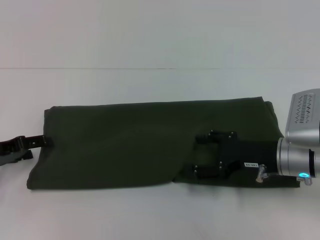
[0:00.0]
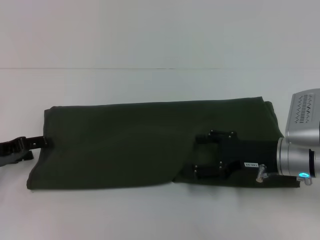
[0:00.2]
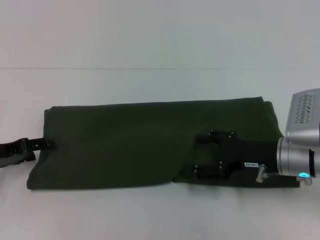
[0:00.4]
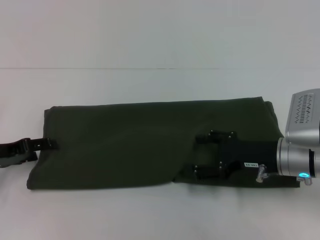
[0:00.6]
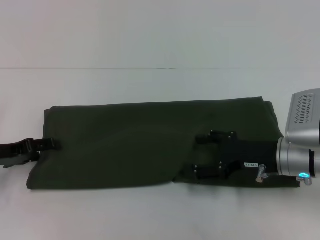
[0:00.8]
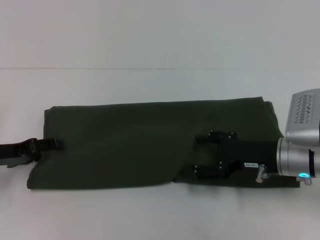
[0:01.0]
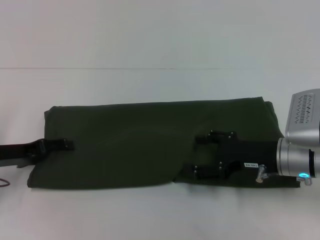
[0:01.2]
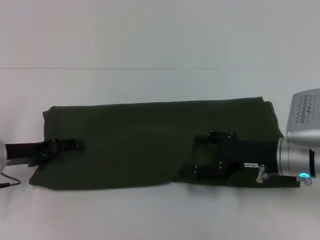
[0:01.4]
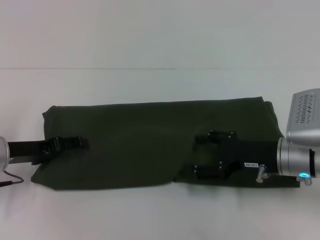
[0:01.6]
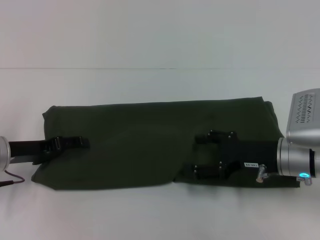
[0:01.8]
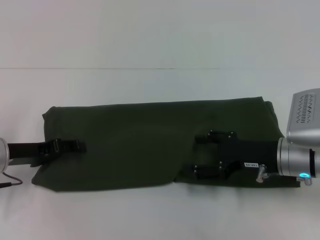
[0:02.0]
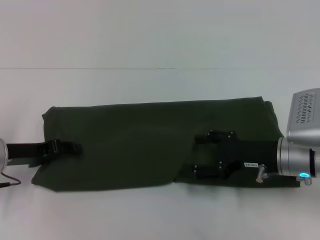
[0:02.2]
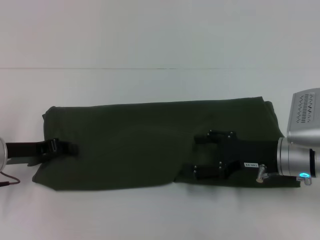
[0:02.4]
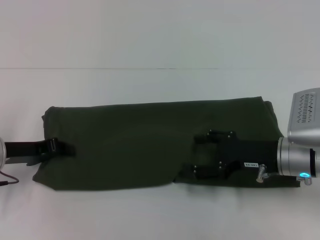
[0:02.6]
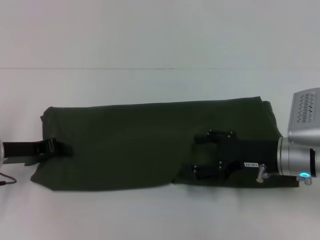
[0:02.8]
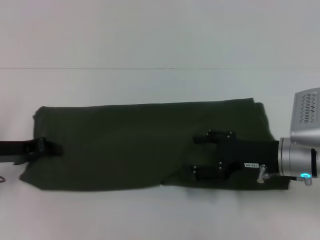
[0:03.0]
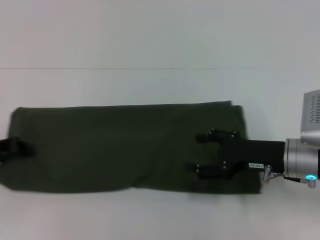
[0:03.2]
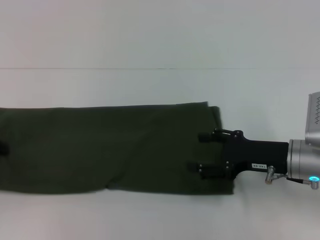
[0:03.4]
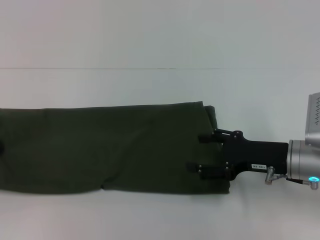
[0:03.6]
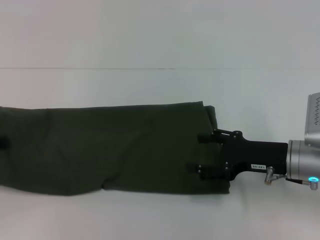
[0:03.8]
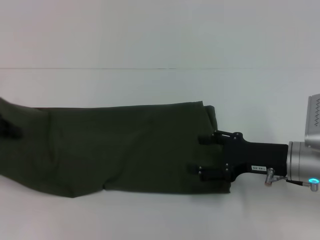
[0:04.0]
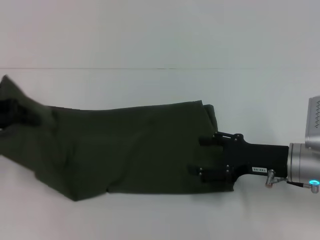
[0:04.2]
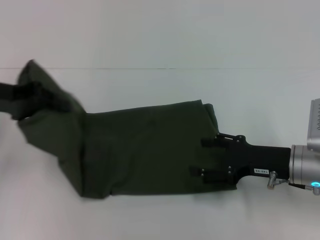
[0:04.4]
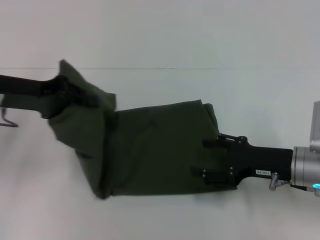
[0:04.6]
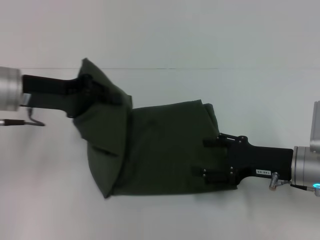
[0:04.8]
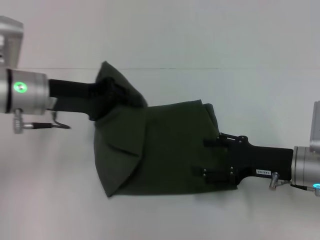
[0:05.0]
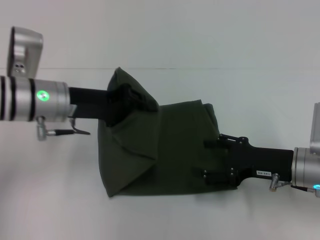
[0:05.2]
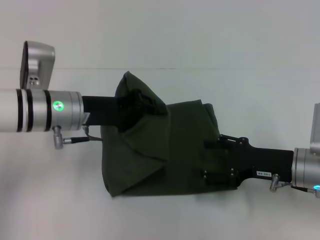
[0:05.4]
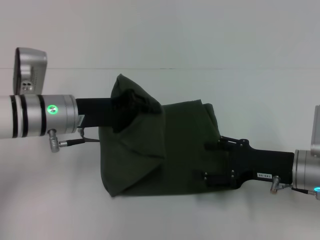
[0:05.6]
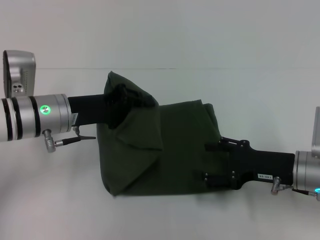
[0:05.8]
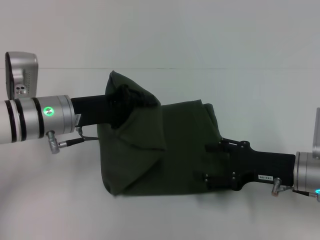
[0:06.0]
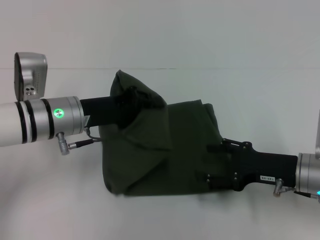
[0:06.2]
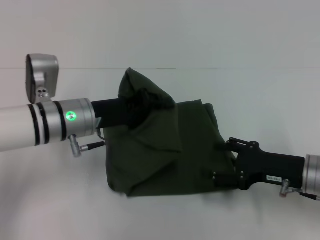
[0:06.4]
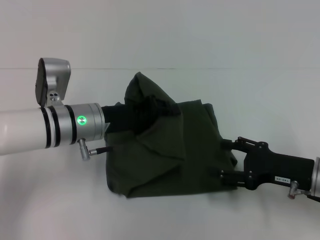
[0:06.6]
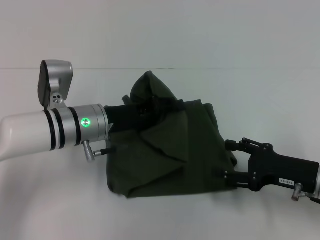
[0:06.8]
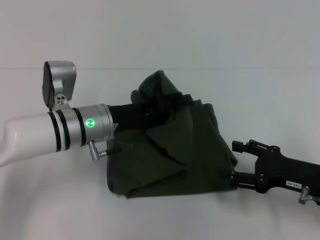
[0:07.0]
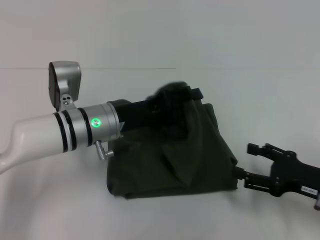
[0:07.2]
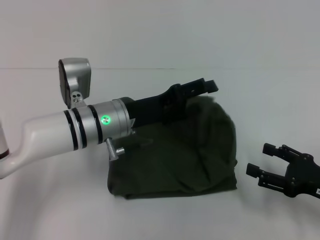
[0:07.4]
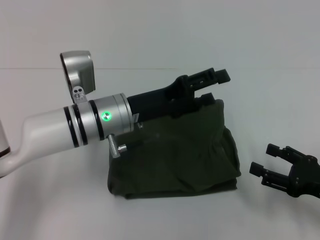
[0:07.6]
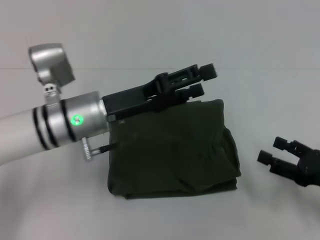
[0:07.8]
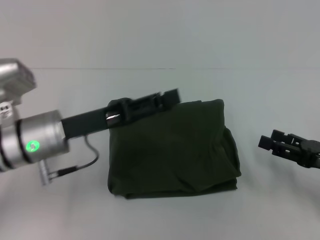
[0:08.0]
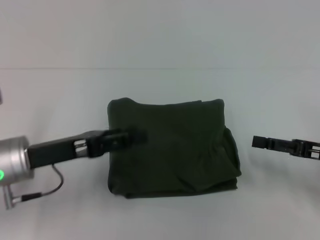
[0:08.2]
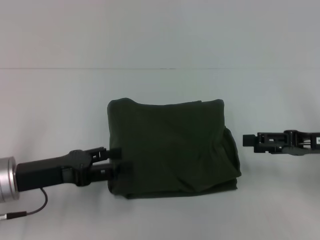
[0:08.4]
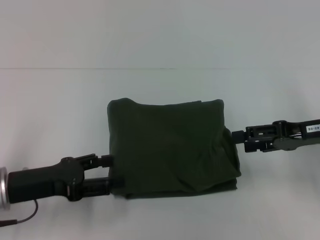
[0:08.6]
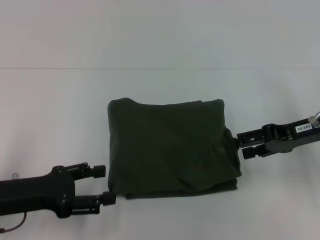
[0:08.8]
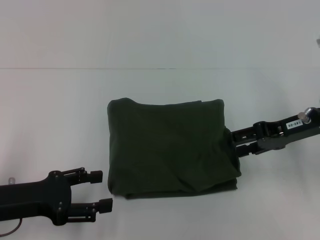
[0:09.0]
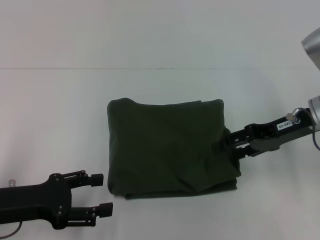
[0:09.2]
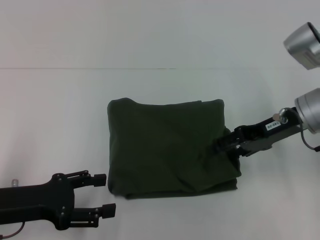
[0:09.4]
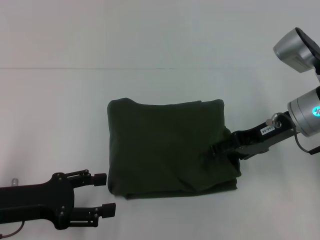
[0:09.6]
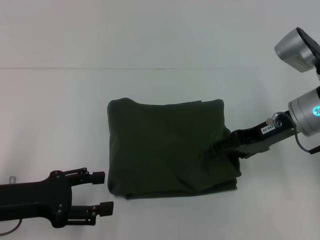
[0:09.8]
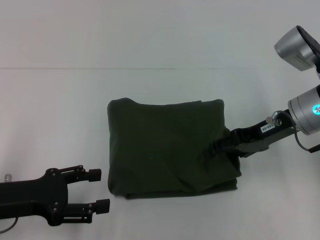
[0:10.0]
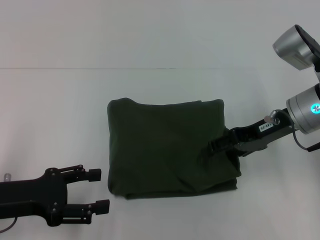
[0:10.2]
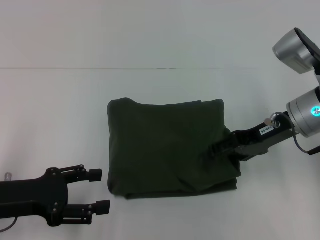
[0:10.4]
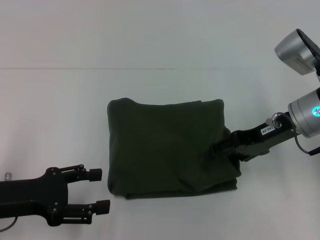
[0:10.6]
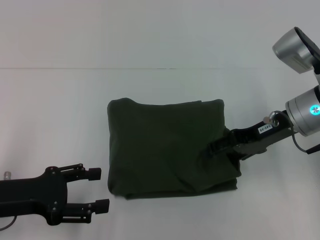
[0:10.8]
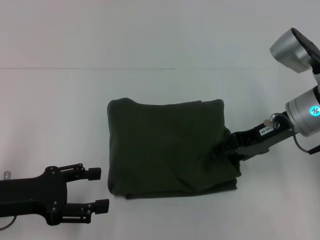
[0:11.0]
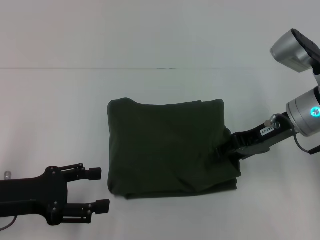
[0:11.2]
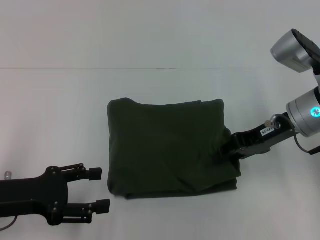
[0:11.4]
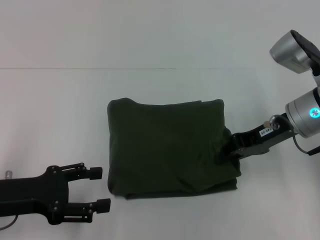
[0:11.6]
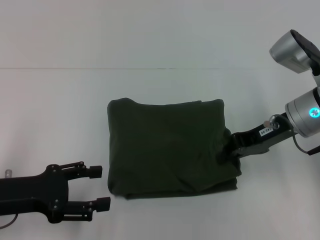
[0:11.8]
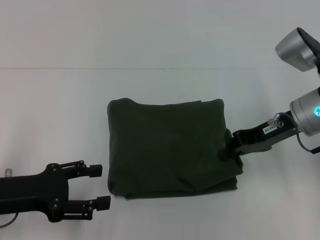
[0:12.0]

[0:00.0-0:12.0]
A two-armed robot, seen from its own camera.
Step, 0:00.0 to 0:07.4: Fold the clothes with your left hand.
0:00.0 to 0:01.6: The left gripper is displaced to the right by about 5 cm.
0:01.6 to 0:03.0: The left gripper closes up.
0:03.0 to 0:04.4: The left gripper heads upward, covering roughly 10 cm.
0:04.4 to 0:06.0: The left gripper moves to the right and downward, some 15 cm.
0:06.0 to 0:07.6: The right gripper heads to the right and backward, covering about 10 cm. The left gripper moves to the right, about 10 cm, and opens.
0:07.6 to 0:09.0: The right gripper heads forward and upward, covering about 15 cm. Meanwhile the left gripper heads to the left and backward, covering approximately 20 cm.
0:09.0 to 0:10.4: The grippers move only a little.
0:10.4 to 0:12.0: The right gripper closes its fingers.

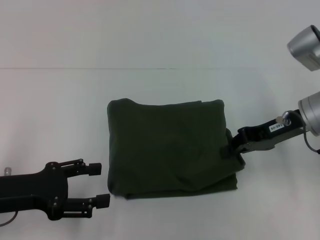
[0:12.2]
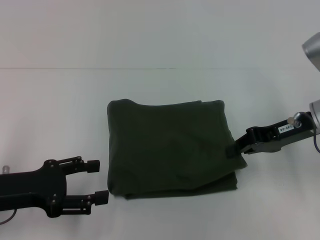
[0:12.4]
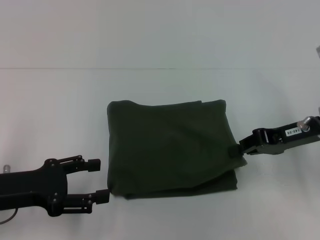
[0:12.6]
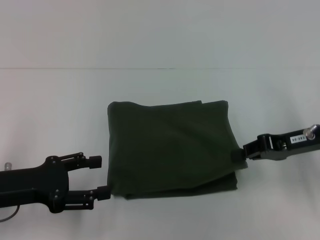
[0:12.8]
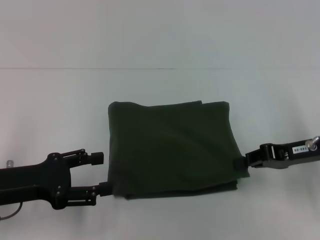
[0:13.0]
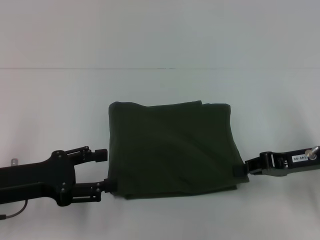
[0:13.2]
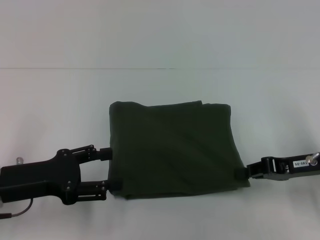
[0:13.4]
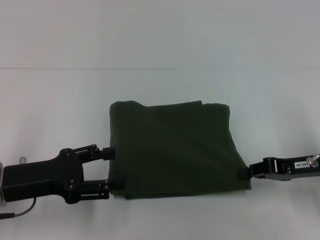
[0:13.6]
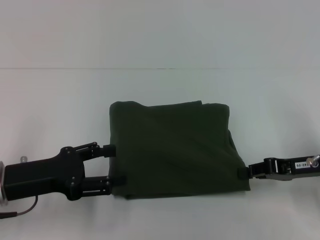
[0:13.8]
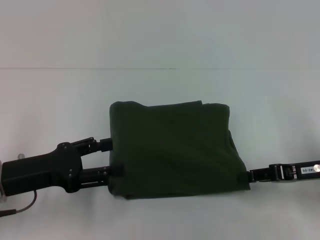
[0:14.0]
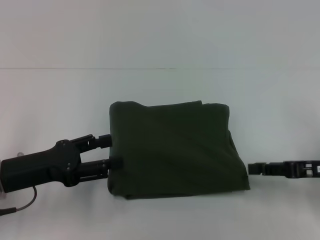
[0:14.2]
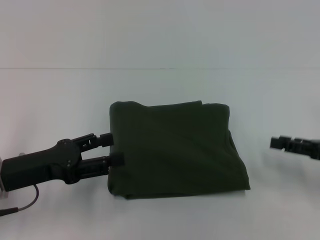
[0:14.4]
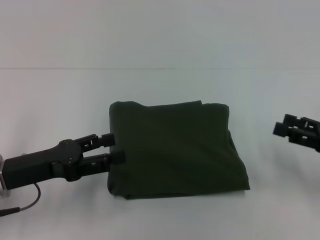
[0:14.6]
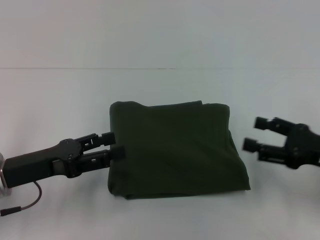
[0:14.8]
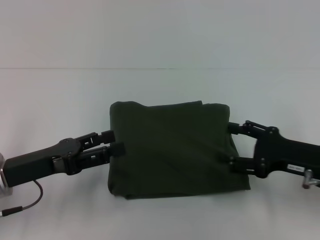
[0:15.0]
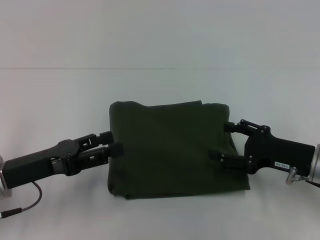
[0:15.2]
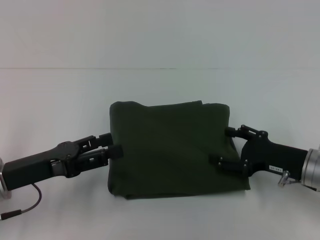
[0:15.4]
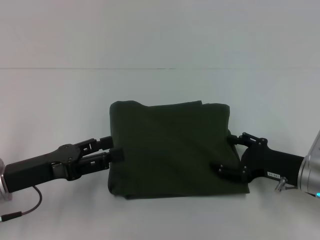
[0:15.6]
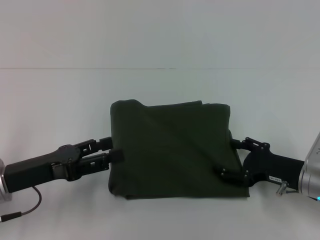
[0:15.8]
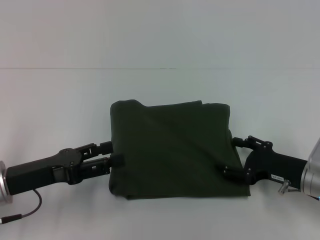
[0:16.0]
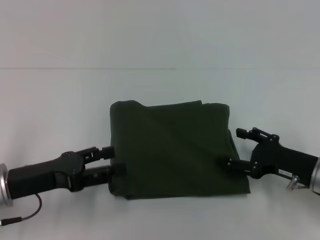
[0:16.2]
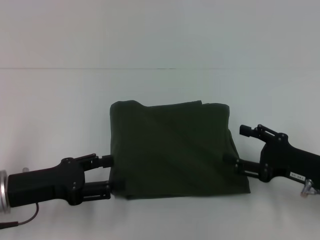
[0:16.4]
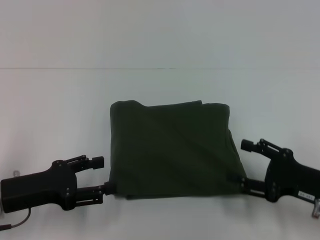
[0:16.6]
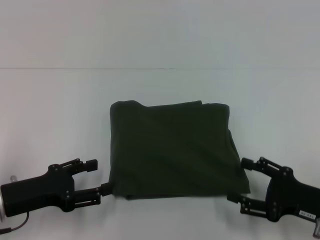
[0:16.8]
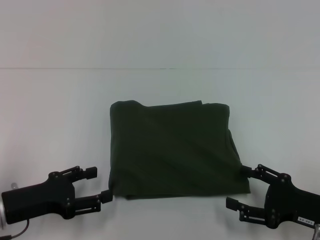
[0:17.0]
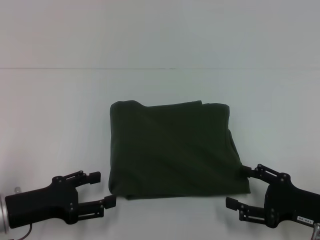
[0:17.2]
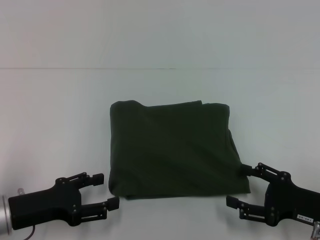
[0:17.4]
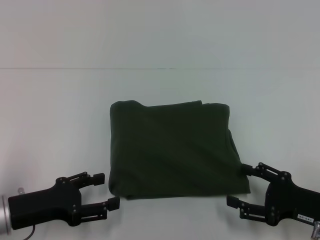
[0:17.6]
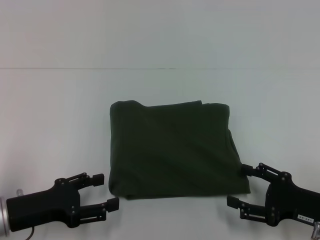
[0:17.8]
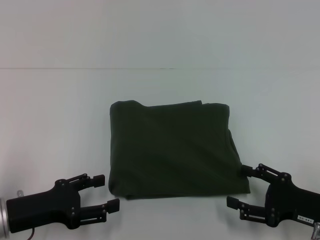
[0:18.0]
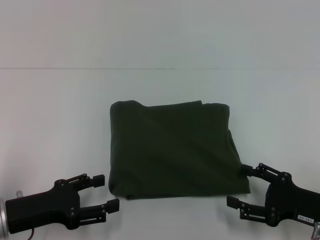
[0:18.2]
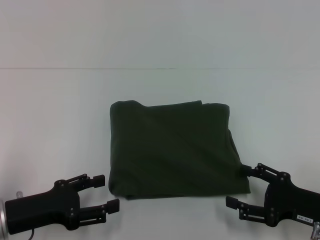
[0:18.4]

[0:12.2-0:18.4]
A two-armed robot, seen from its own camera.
0:12.2 to 0:13.8: The right gripper travels downward, backward and to the right by some 10 cm.
0:13.8 to 0:15.4: The right gripper opens up.
0:15.4 to 0:16.8: The right gripper moves backward, about 5 cm.
0:16.8 to 0:18.4: The grippers stay close to where they were, moving slightly.
